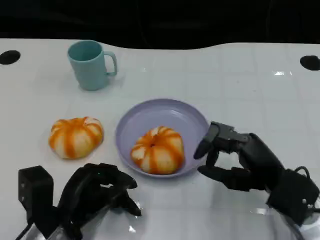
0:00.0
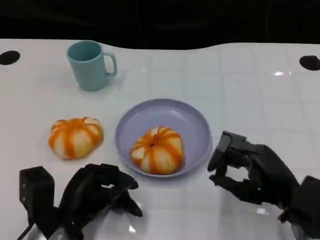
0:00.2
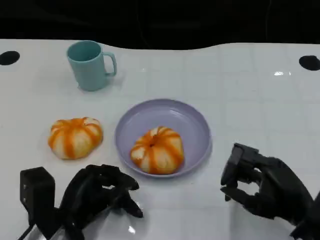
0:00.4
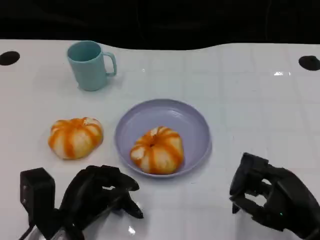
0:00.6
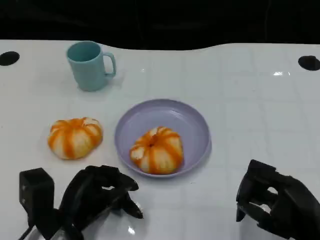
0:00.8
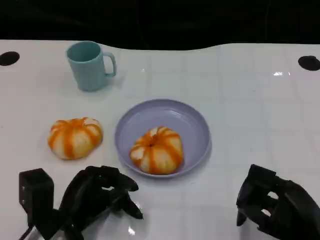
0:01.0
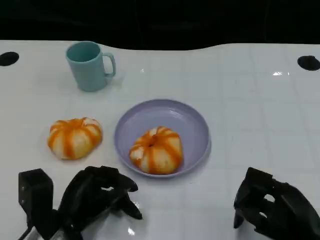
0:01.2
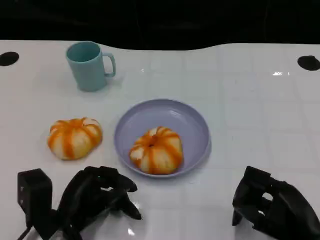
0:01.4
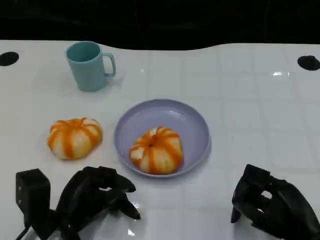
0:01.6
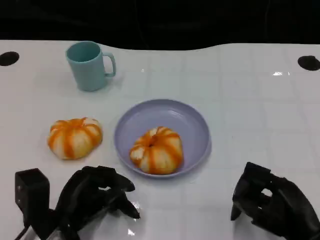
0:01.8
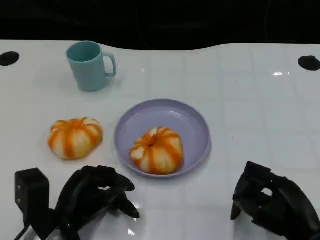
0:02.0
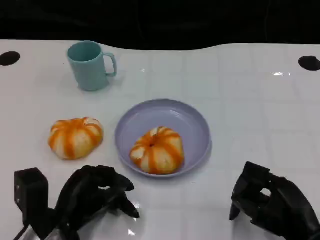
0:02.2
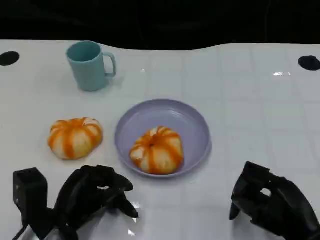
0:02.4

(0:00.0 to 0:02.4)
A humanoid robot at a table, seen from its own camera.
Task of the whole recording: Grasp the bread from the table and place it into the plate.
0:00.0 - 0:01.2: The right hand is displaced backward by some 5 cm.
0:01.2 - 0:02.4: Neither hand changes place.

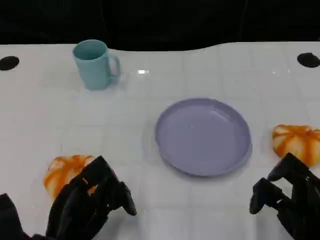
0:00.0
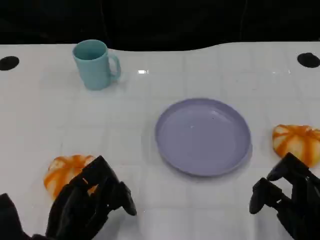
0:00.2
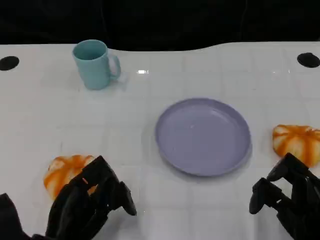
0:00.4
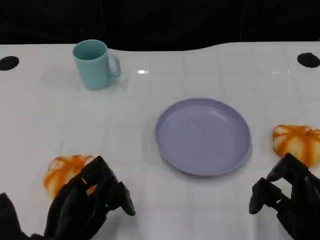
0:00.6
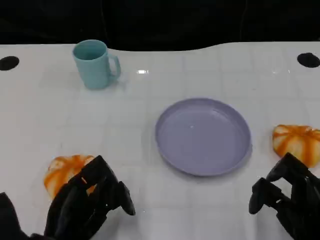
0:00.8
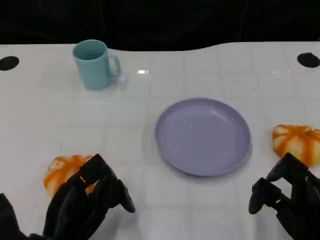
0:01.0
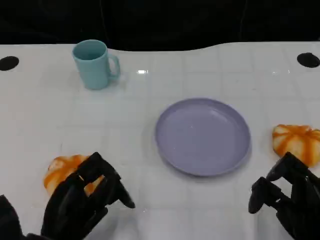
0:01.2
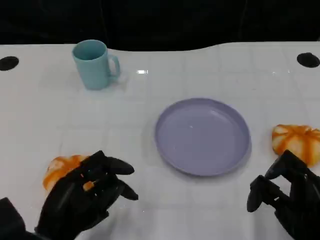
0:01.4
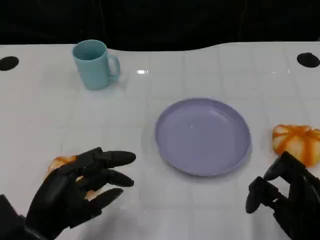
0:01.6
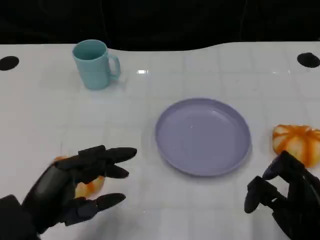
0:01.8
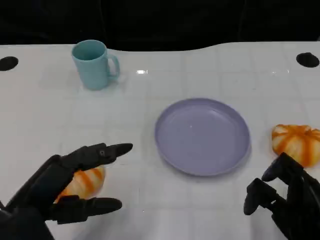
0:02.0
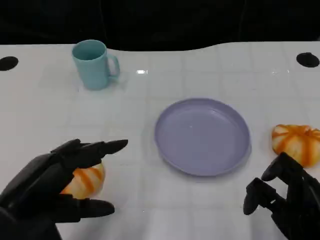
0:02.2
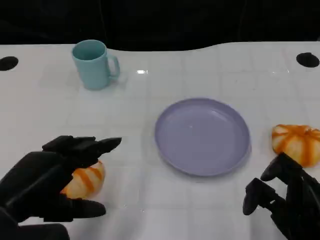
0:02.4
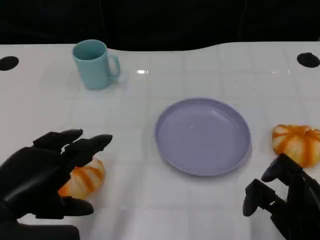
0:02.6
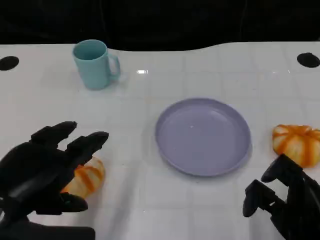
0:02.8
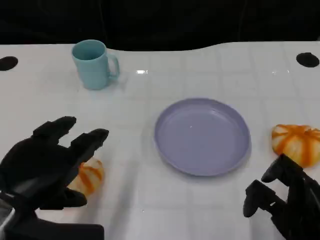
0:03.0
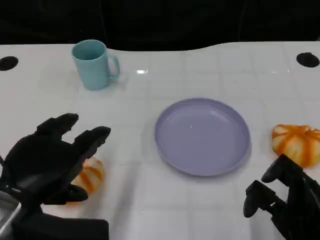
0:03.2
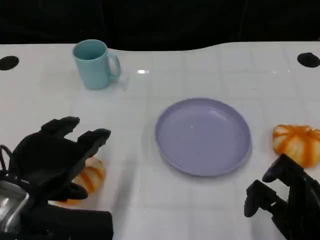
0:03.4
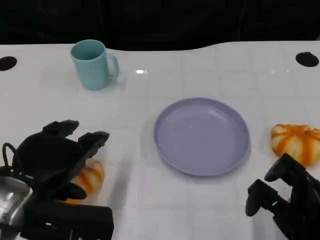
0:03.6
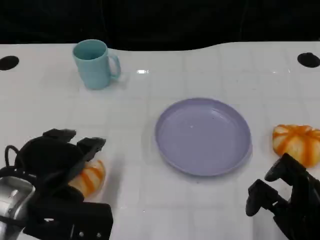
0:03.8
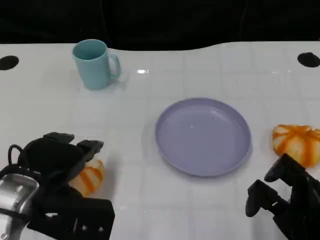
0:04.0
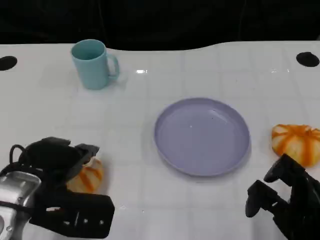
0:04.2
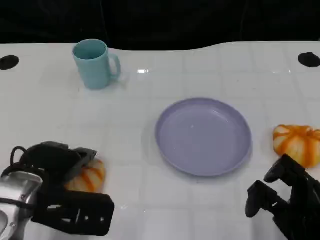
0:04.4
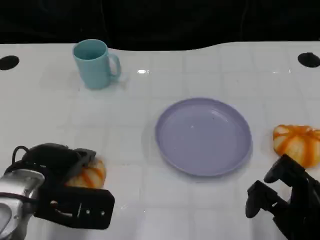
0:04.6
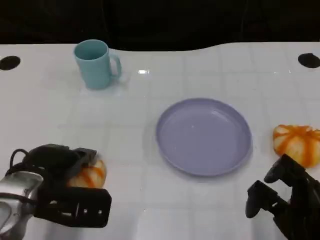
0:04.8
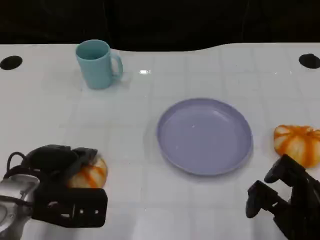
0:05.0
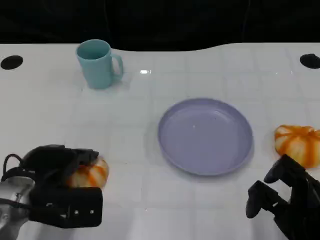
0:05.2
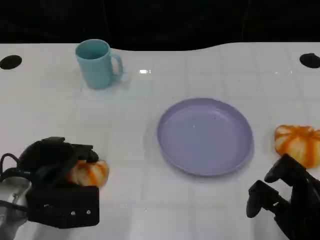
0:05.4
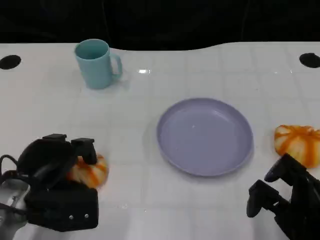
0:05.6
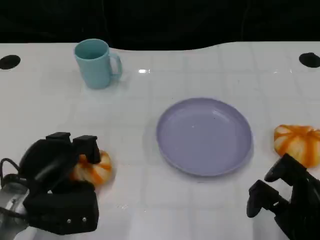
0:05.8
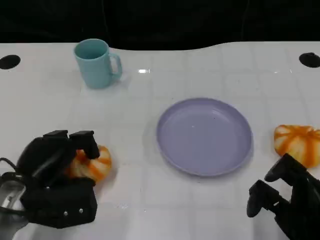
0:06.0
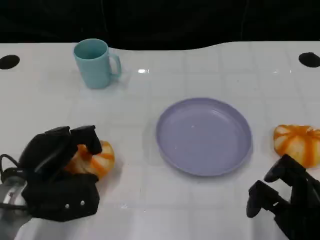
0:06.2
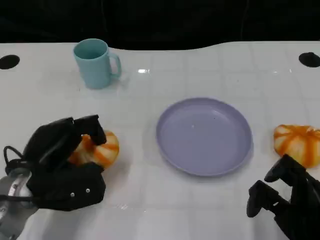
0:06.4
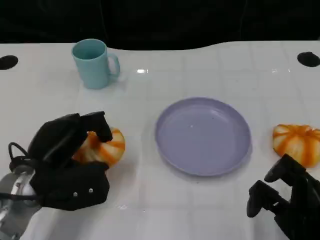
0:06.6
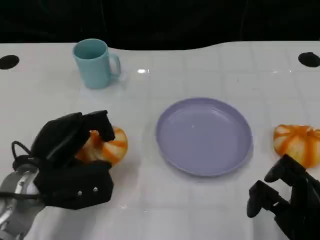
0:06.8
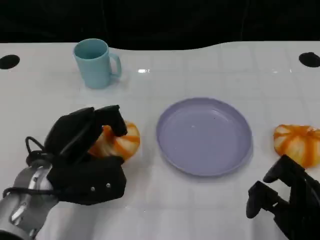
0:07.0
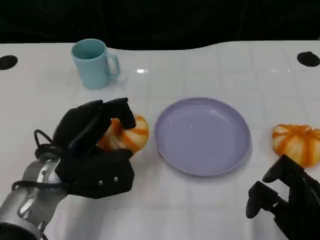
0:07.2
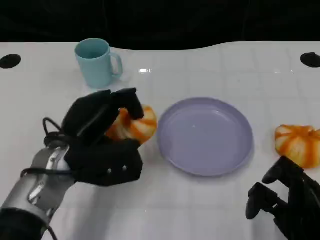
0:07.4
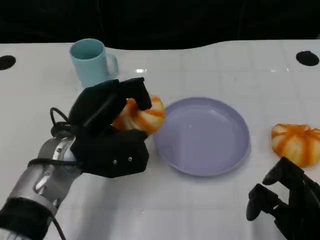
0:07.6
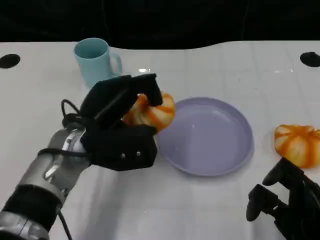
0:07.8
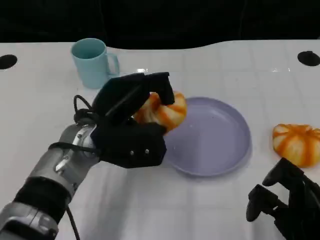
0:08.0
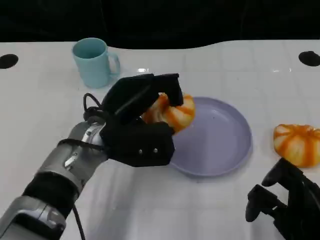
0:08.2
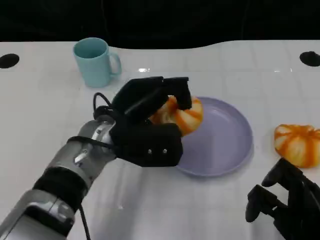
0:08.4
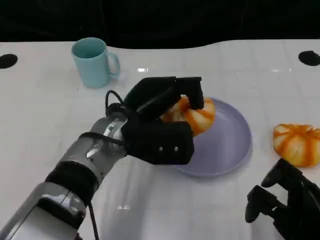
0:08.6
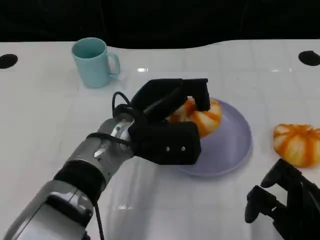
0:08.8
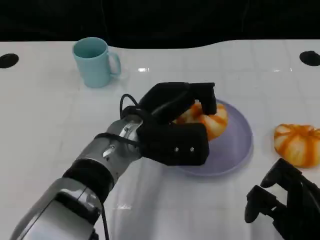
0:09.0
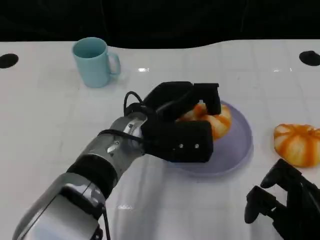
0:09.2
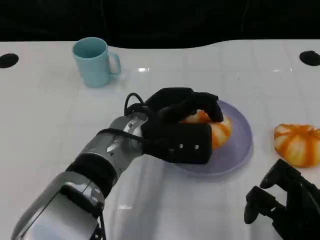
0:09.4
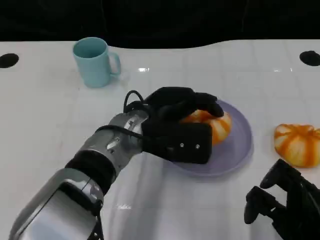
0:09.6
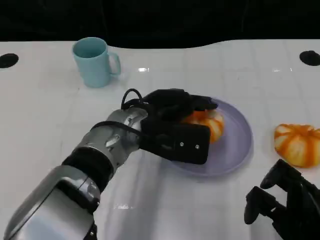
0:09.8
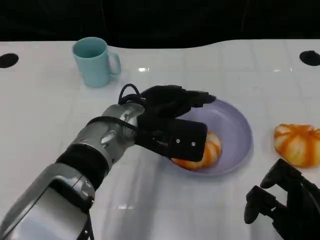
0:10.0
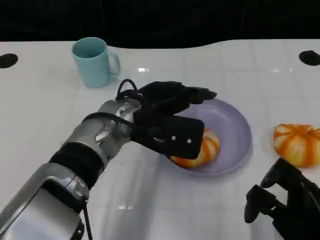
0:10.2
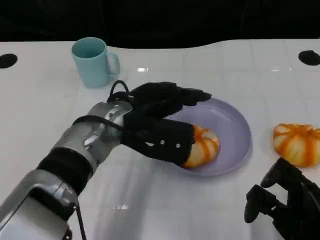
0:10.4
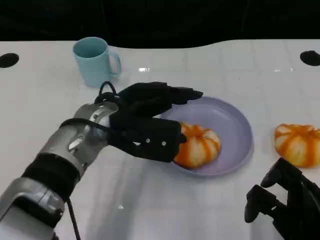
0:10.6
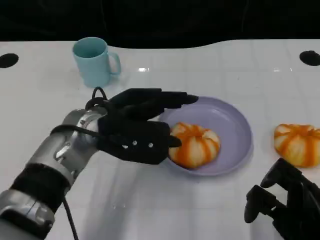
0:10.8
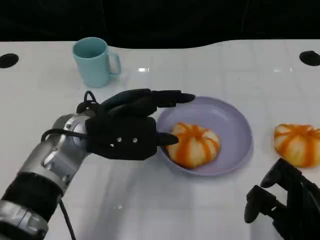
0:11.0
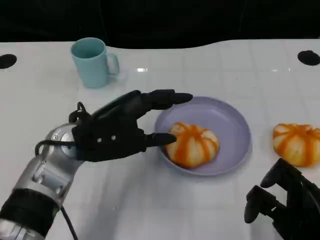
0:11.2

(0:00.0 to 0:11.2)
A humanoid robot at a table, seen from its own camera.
Task of the whole recording: Grasp the bread from the table and place it into the plate.
0:01.6 - 0:03.2: The left hand moves upward, about 10 cm.
0:03.2 - 0:04.8: The left hand moves downward and forward, roughly 10 cm.
0:06.4 - 0:08.0: The left hand moves to the right, approximately 10 cm.
0:08.0 - 0:09.6: The left hand is displaced to the right by approximately 5 cm.
0:09.6 - 0:11.2: The left hand moves to the left, approximately 10 cm.

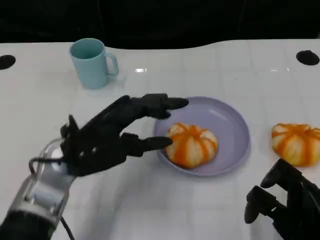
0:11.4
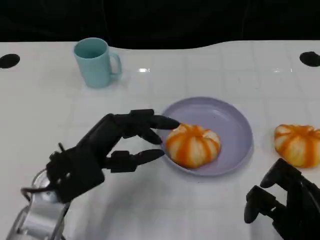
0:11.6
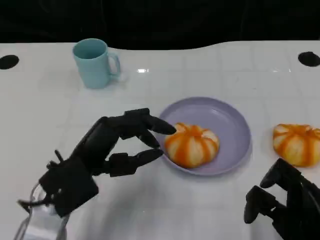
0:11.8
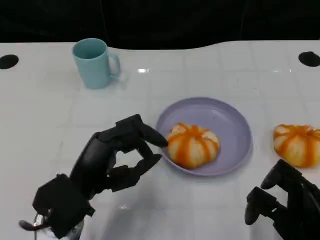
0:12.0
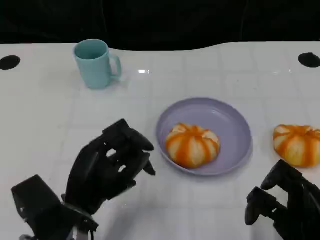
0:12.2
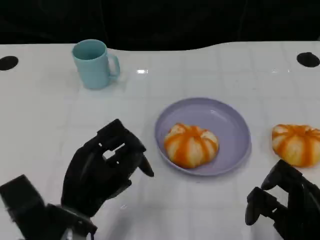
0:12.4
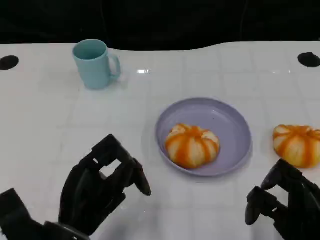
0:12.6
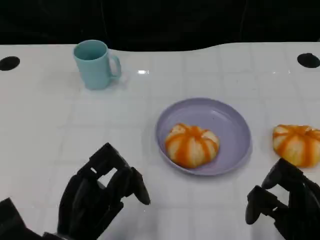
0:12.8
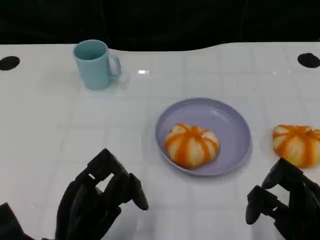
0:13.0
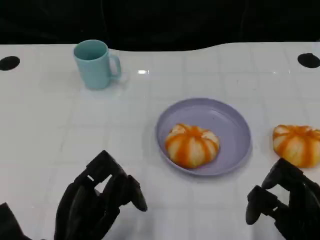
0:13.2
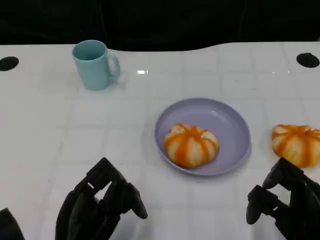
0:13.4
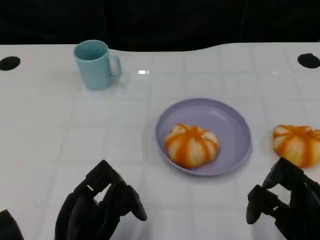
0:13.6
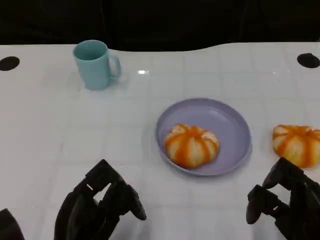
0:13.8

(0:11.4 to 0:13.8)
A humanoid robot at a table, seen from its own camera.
Task of the whole recording: Grasp the bread from the table and place it into the plate.
0:11.4 - 0:12.6: The left hand travels backward and downward by approximately 10 cm.
0:12.6 - 0:13.8: The hands move only a little.

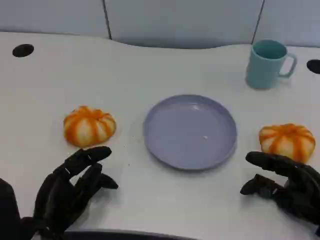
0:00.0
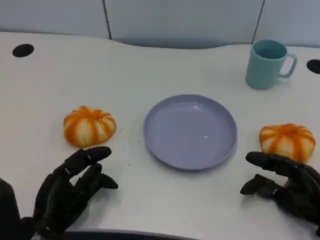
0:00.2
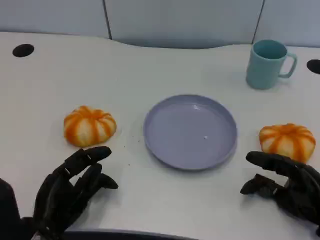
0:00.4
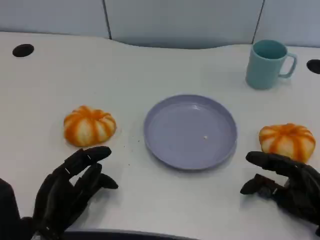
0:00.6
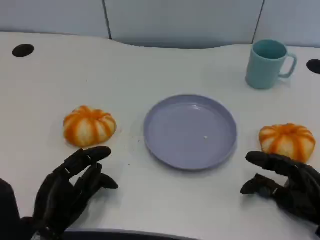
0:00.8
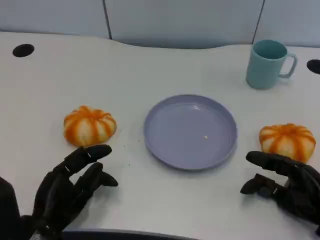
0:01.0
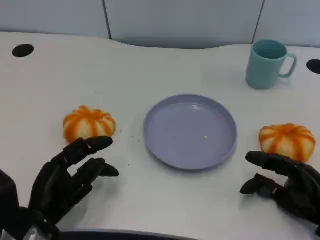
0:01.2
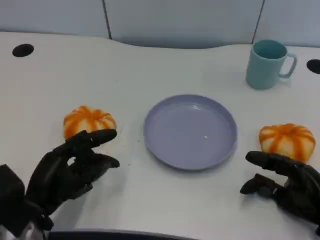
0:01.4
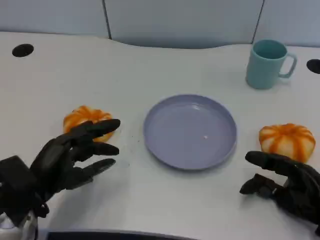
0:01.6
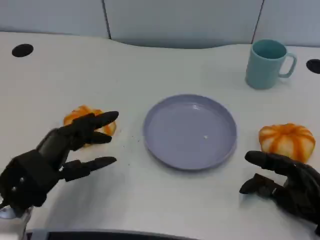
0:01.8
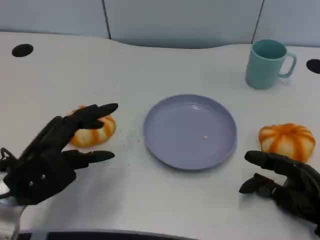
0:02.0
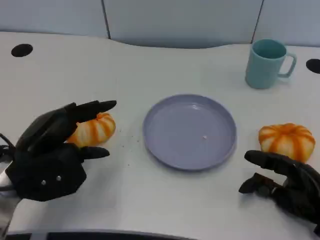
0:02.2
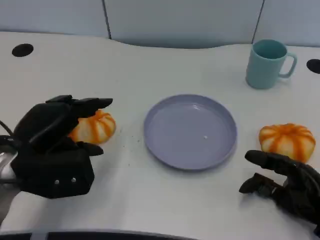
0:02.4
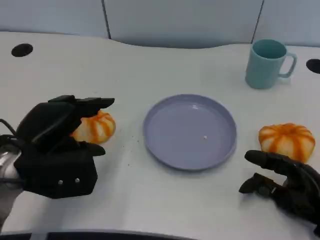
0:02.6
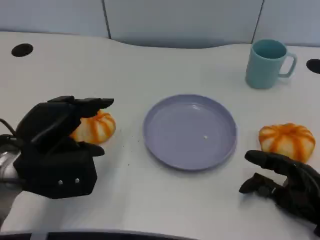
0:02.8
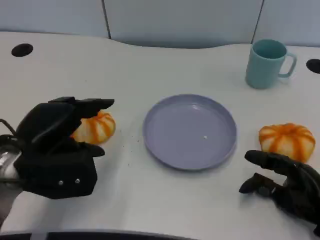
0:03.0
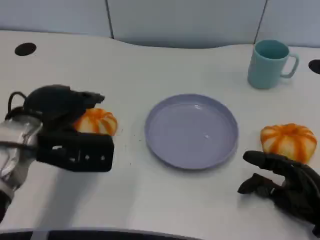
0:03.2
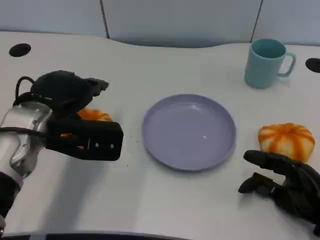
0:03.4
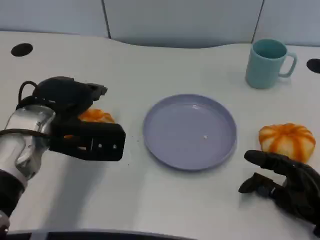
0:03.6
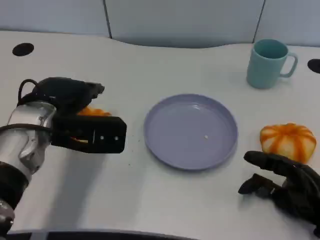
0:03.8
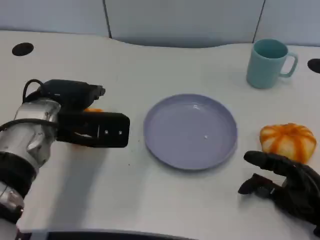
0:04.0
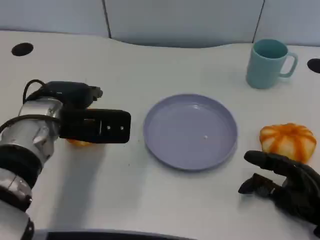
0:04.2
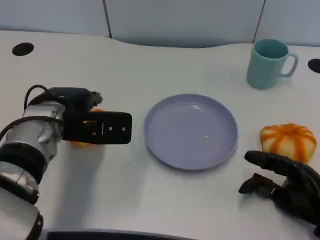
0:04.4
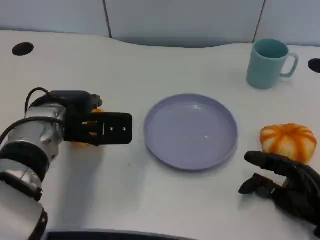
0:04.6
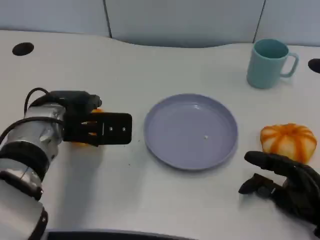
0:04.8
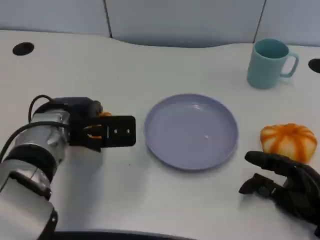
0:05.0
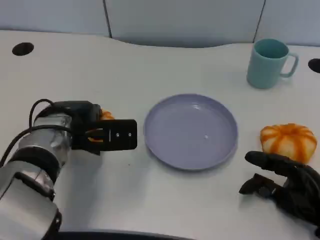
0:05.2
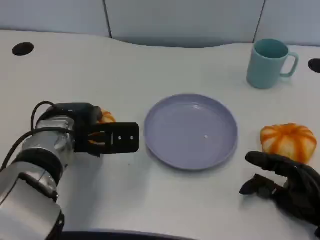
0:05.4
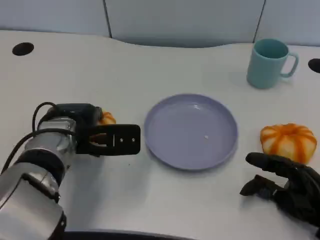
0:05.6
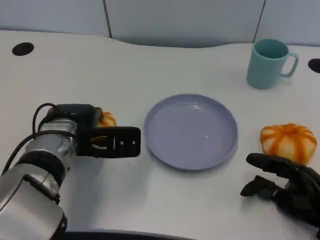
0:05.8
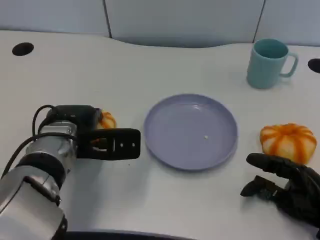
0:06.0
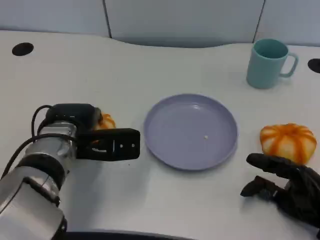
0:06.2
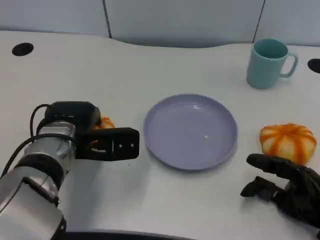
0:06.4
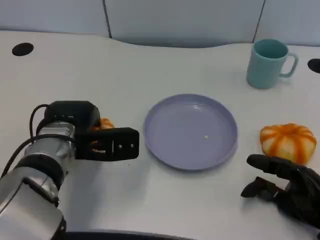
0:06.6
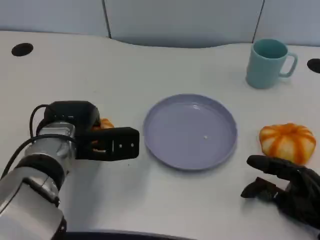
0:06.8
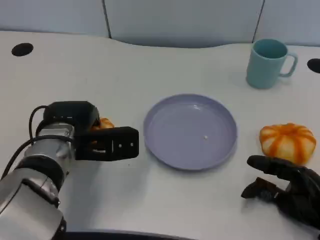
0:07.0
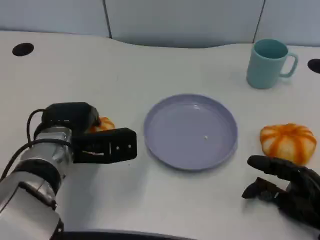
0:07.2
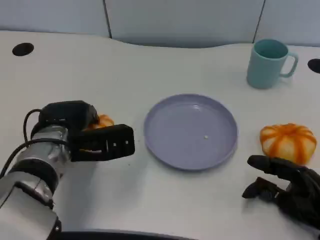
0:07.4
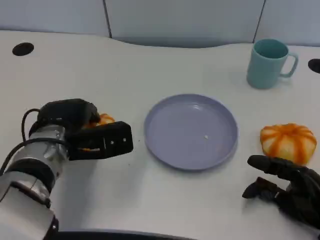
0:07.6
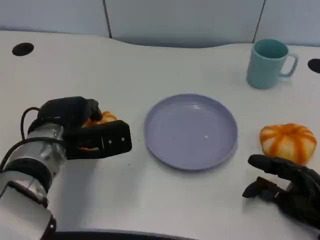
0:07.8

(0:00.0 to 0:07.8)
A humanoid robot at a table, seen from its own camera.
Task of the whole recording: Grasp the bread from the table and place it into the plate.
0:00.0 - 0:01.6: The left hand goes some 5 cm upward.
0:01.6 - 0:03.2: The left hand goes roughly 10 cm upward and forward.
0:03.2 - 0:04.6: The left hand changes place by approximately 5 cm.
0:04.6 - 0:07.8: There are only small adjustments of the hands.
